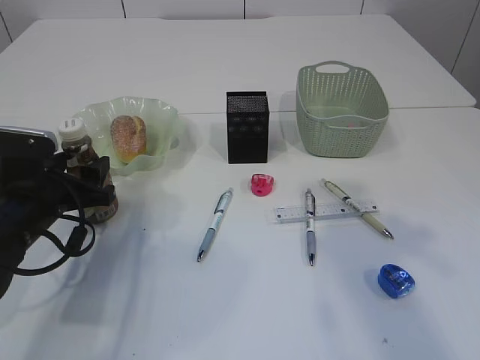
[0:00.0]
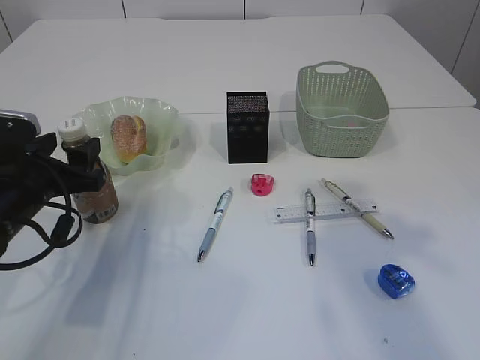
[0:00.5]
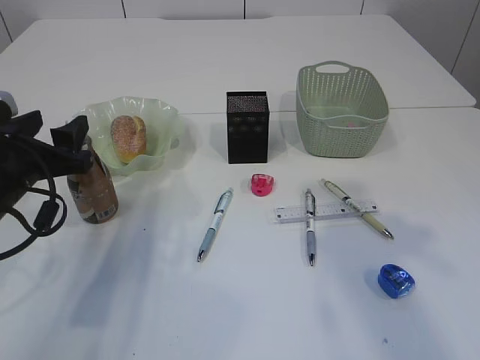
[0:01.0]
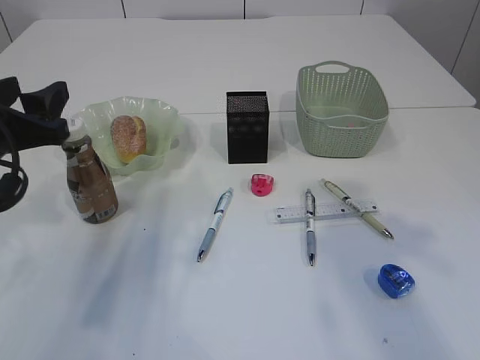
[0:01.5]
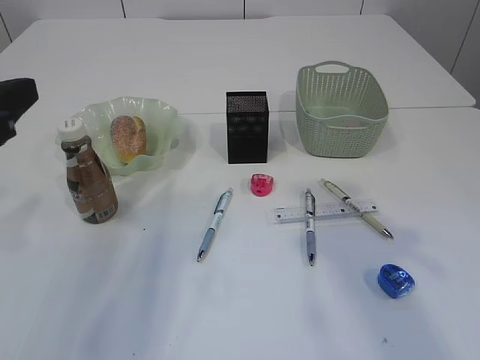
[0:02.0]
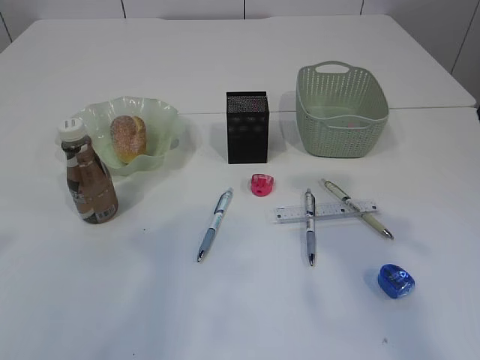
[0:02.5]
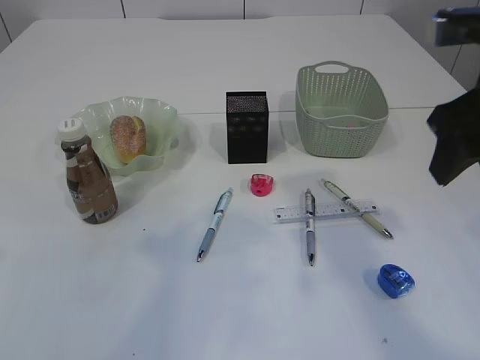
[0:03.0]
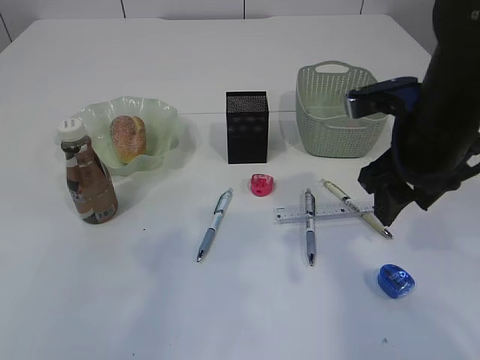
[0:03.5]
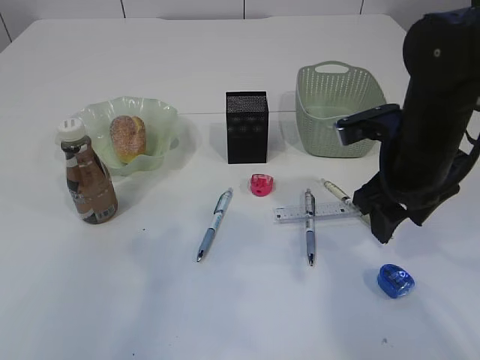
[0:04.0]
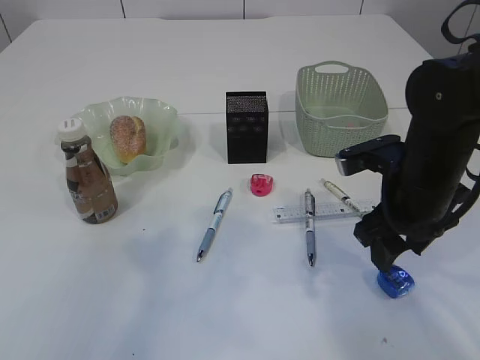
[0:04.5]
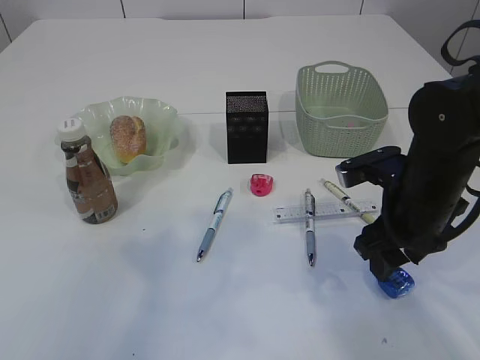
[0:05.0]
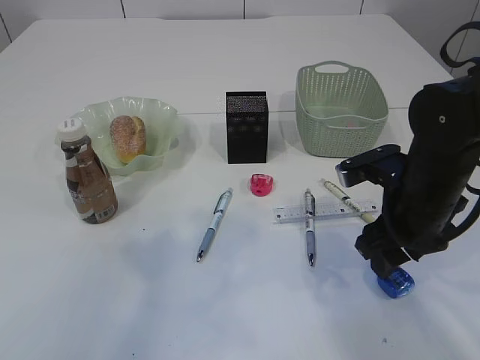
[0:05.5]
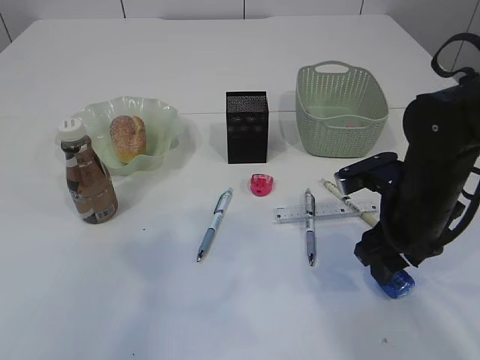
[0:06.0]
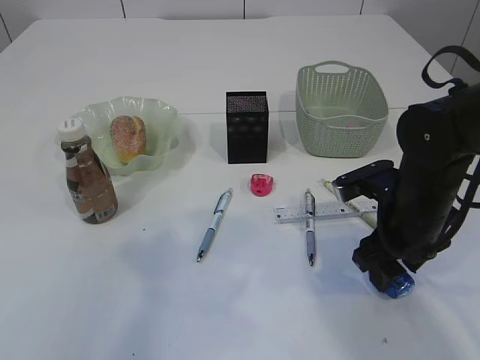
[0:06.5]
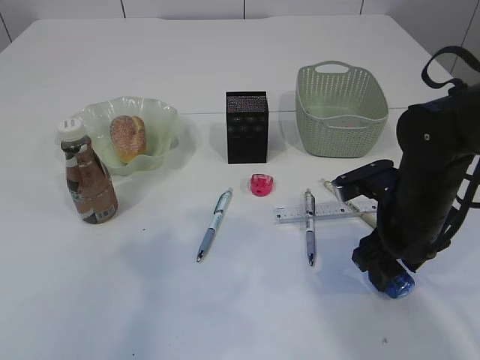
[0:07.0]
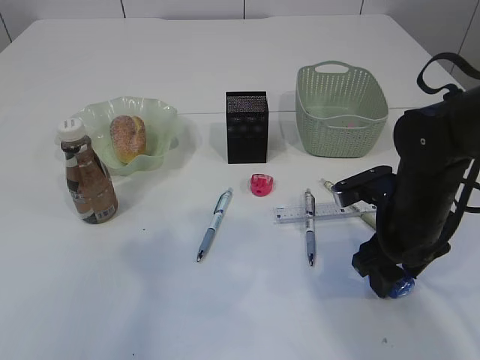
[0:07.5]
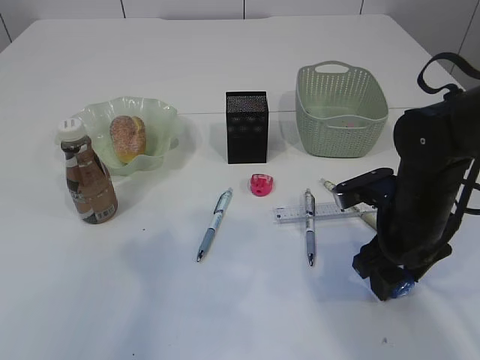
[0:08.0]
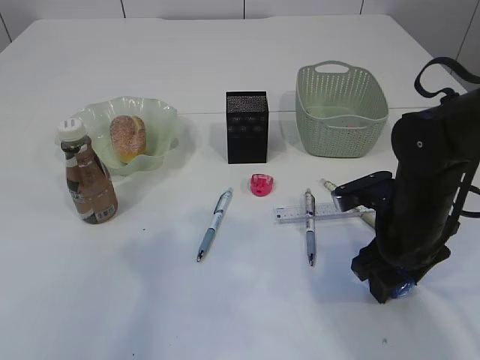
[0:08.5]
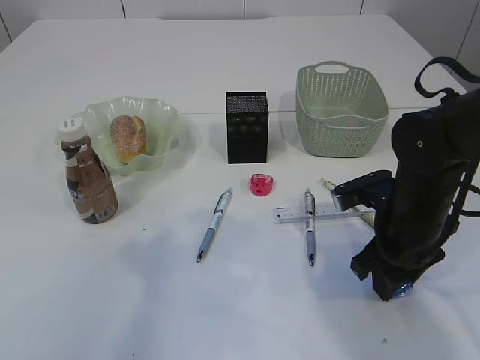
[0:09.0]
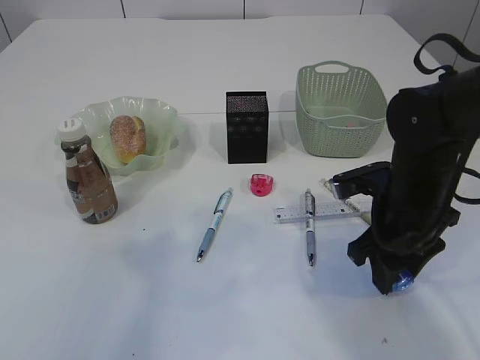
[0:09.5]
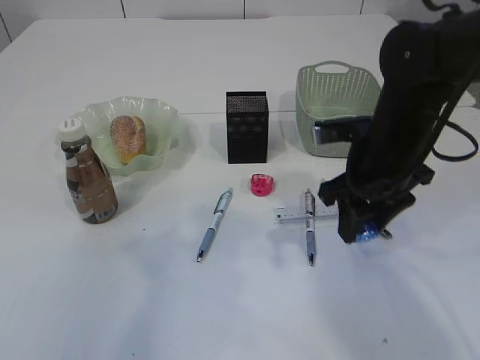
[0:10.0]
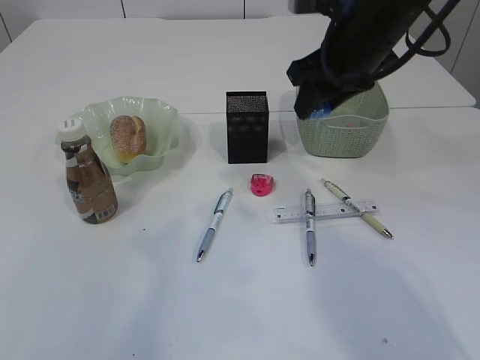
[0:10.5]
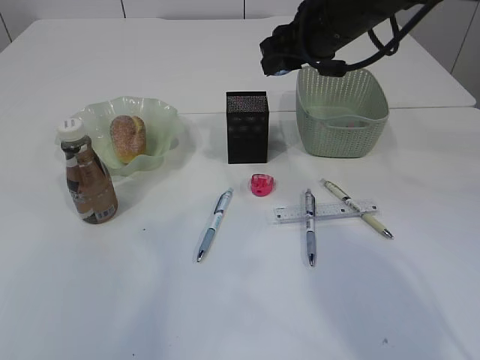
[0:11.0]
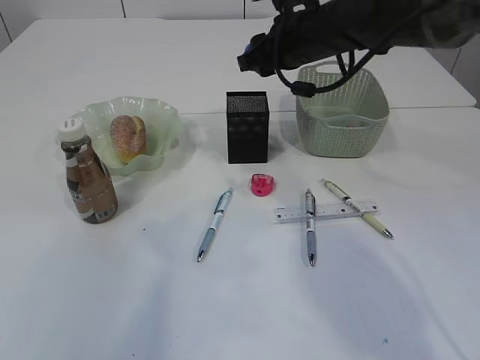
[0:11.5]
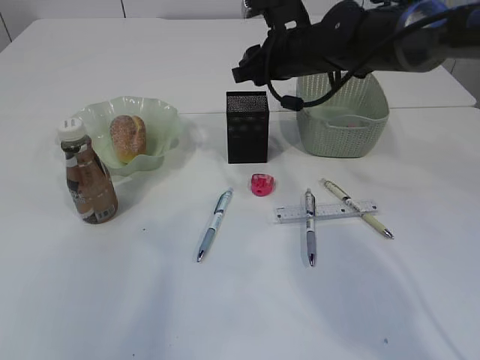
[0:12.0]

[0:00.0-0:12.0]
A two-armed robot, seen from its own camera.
Step, 0:02.0 to 0:09.5: Pick up the blue pencil sharpener.
0:00.0 to 0:02.0: The left gripper heads upward and backward, covering about 20 cm.
0:02.0 to 0:04.0: The left gripper heads backward and upward, covering about 10 cm. The right gripper moves downward and forward, about 25 cm.
0:04.0 to 0:06.0: The right gripper is displaced downward by roughly 5 cm.
0:06.0 to 0:08.0: The grippers move only a little.
0:08.0 to 0:10.0: The right gripper heads upward, covering approximately 5 cm.
0:10.0 to 0:12.0: The right gripper travels forward and to the left by approximately 15 cm.

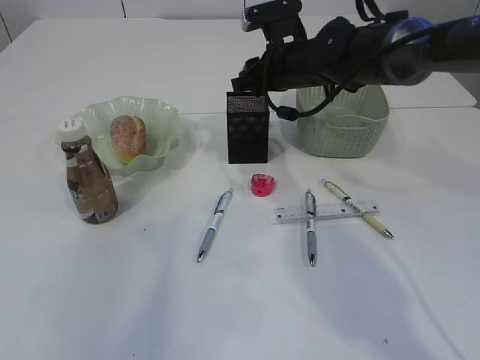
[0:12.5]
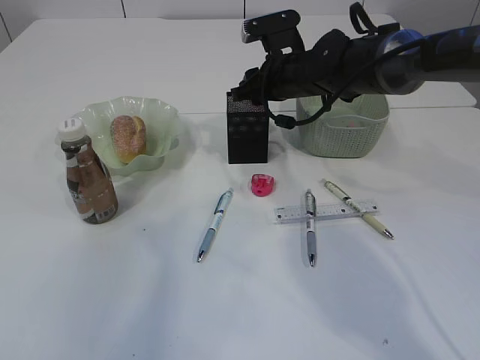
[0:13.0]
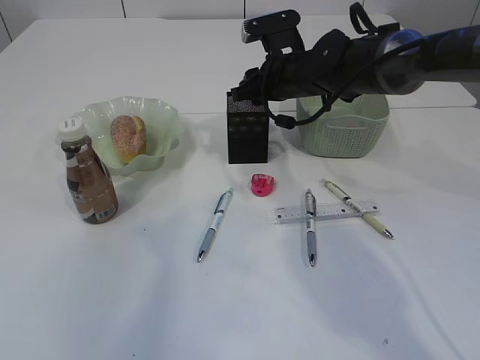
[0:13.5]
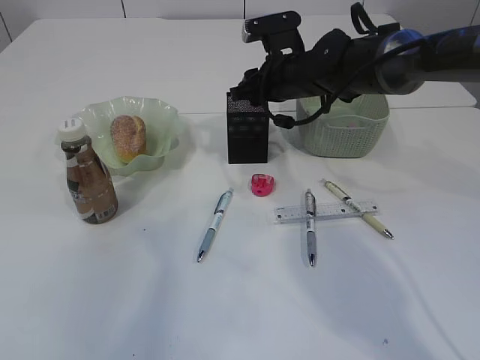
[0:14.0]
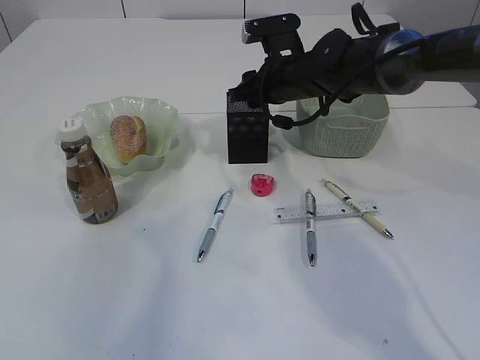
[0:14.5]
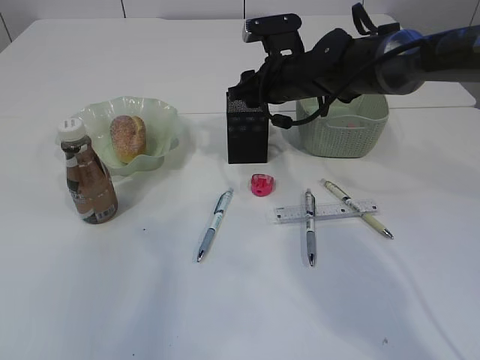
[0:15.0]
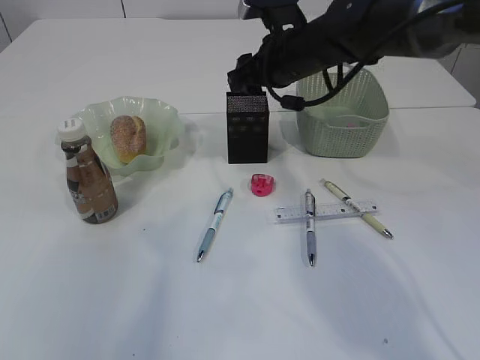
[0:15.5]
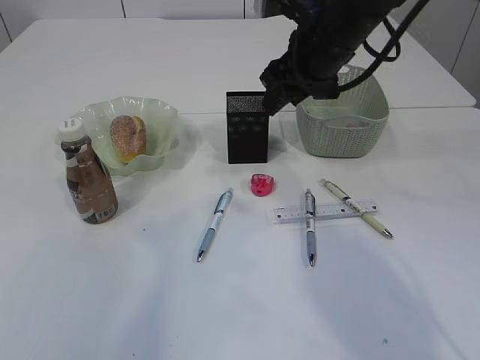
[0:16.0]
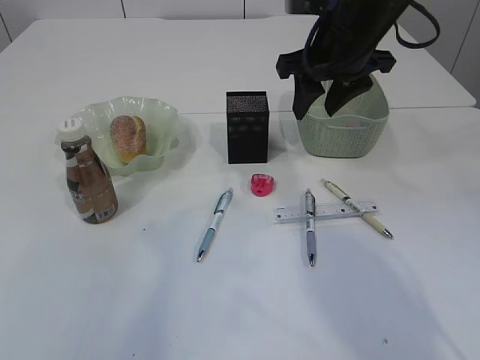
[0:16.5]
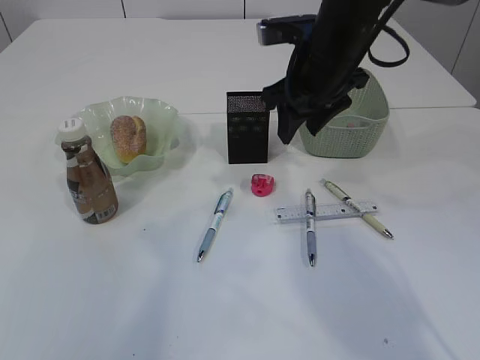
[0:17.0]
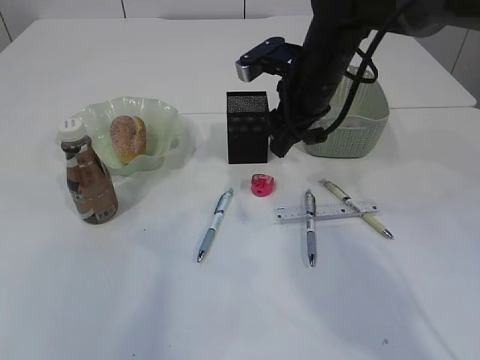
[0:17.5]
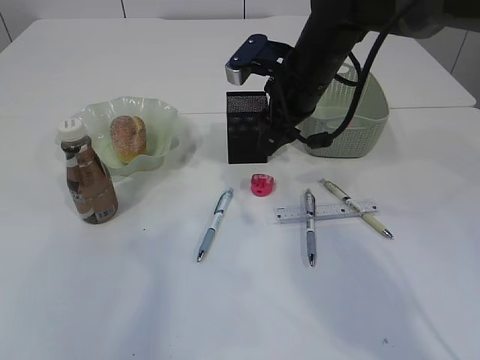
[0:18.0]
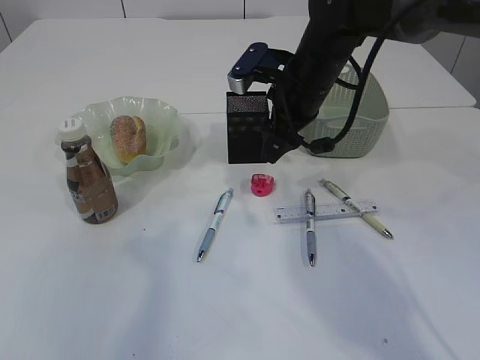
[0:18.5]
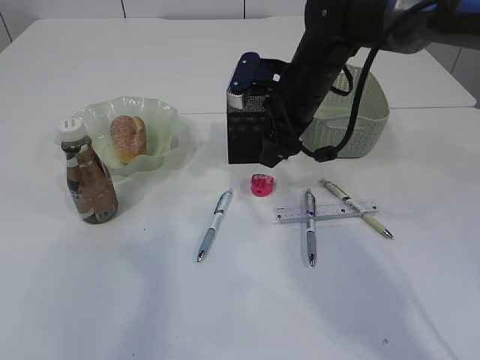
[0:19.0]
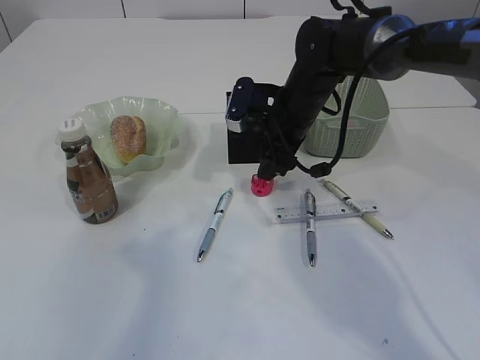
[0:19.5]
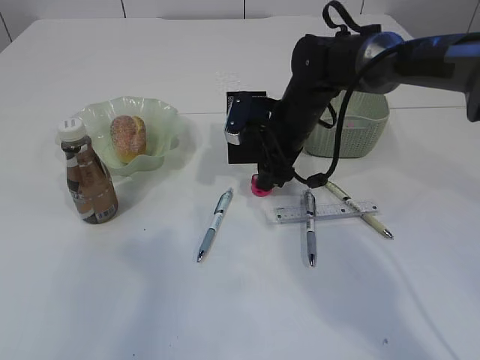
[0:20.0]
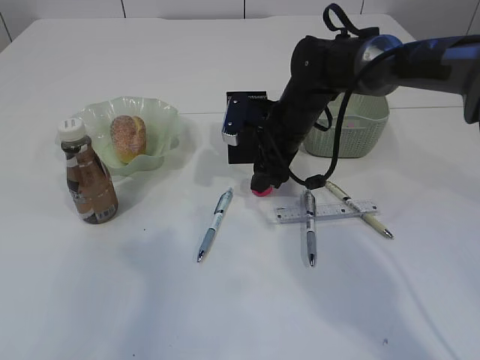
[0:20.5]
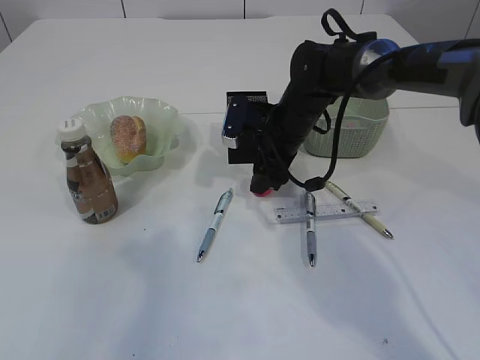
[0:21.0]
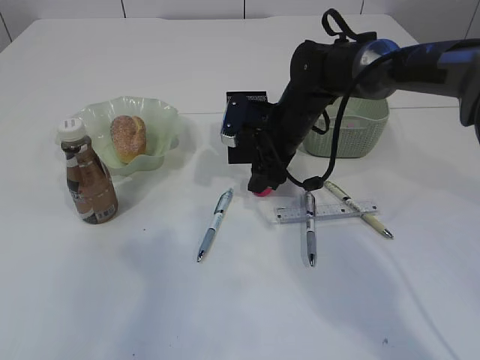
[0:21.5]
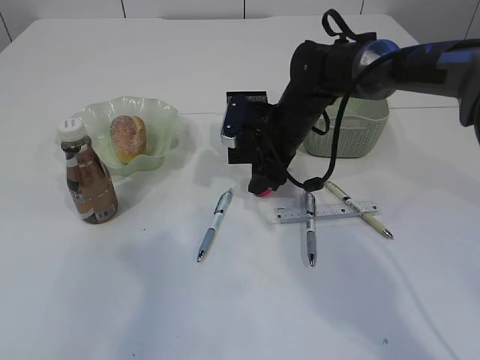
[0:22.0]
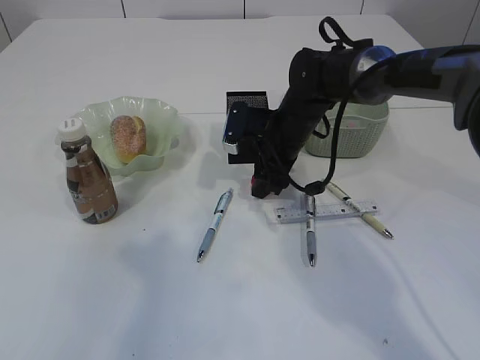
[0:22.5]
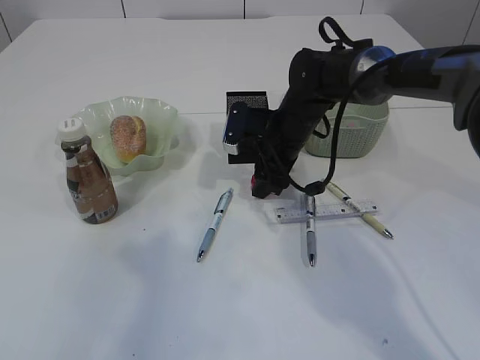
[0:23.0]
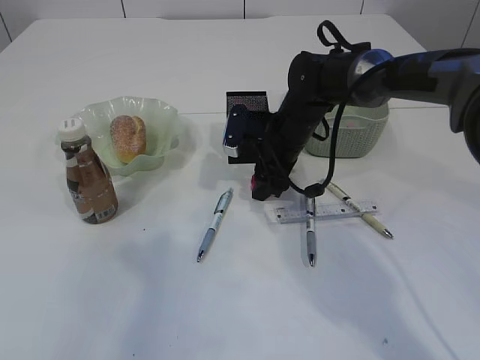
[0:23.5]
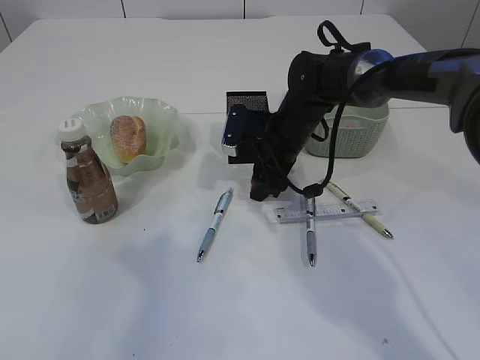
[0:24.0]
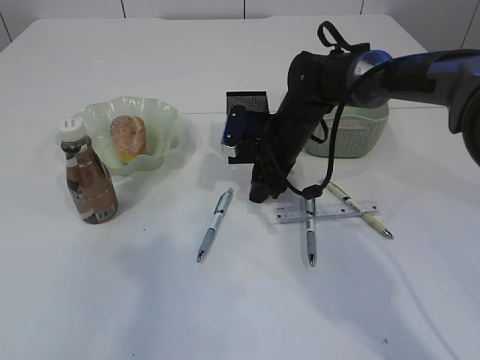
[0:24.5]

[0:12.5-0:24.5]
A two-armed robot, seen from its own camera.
Step, 0:12.5 to 0:16.0: Place the blue pencil sharpener into the pen holder.
0:12.5 to 0:14.5: The grippers stay close to where they were, moving slightly.
0:14.5 to 0:16.5: The right gripper shifts roughly 15 cm upward and backward.
0:16.5 to 0:18.5: The right gripper goes approximately 5 cm downward.
0:18.5 to 0:20.5: The right gripper moves downward, some 5 cm.
0:20.5 to 0:22.5: There are only small adjustments of the grippers.
0:22.5 to 0:24.5: Both grippers stay put.

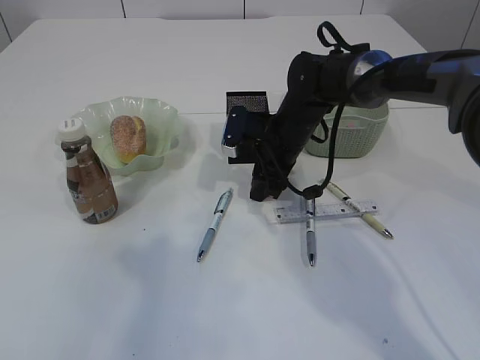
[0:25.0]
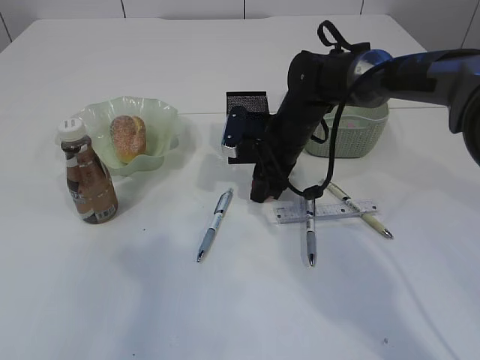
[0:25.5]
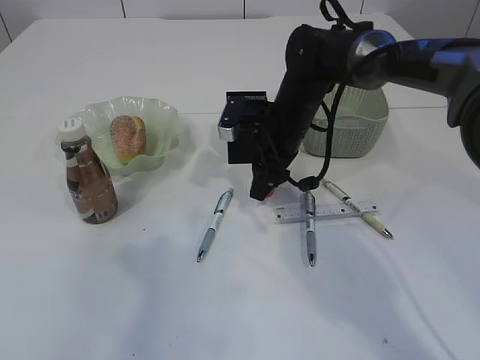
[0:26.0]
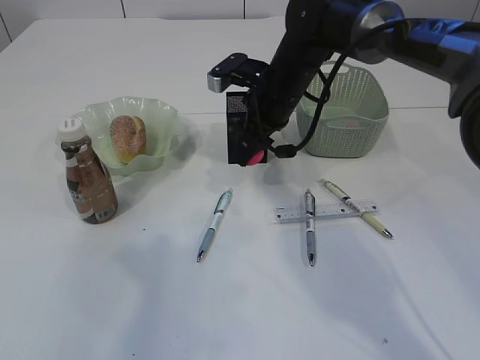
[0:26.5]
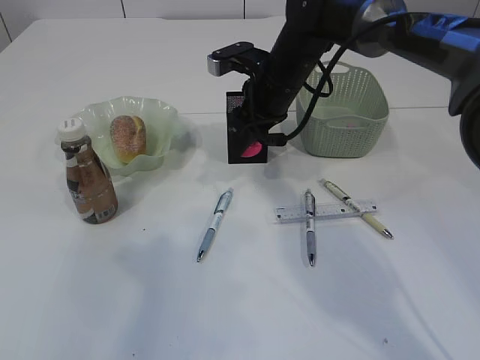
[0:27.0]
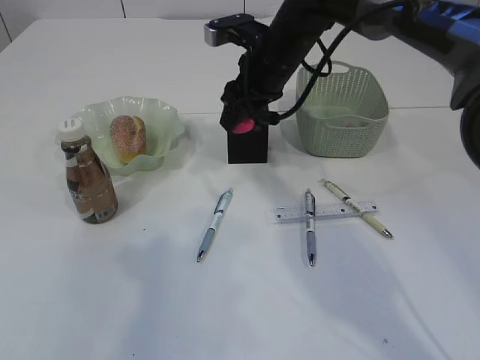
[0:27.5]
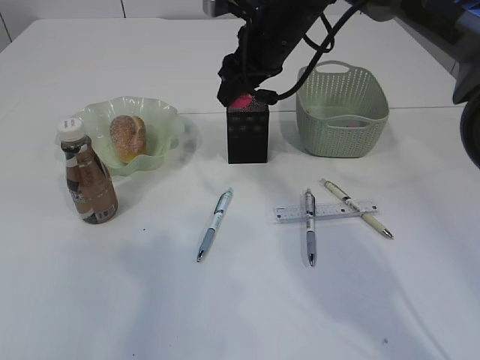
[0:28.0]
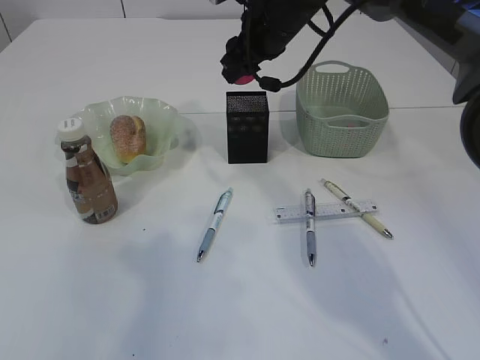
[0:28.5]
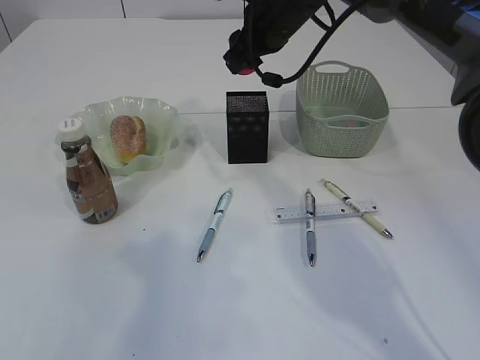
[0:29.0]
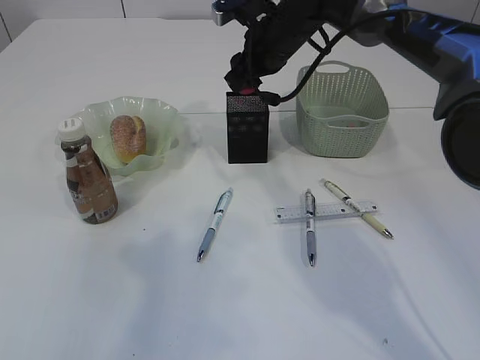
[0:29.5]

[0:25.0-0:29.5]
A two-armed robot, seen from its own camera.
0:25.0 to 0:27.0: The right gripper shifts some 10 cm upward.
0:27.0 to 0:29.5: The right gripper ends up approximately 5 cm from where it was.
